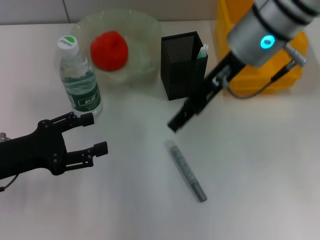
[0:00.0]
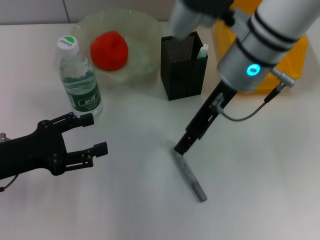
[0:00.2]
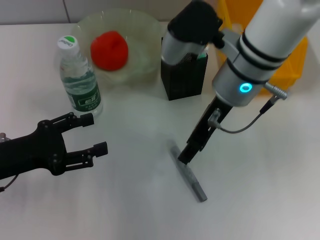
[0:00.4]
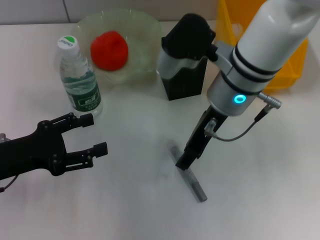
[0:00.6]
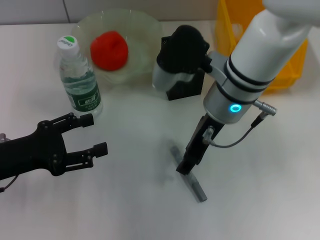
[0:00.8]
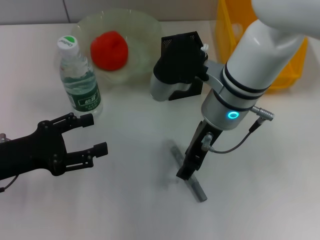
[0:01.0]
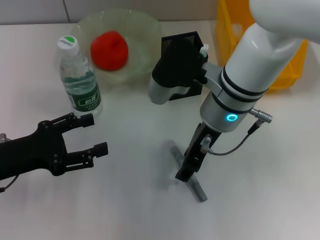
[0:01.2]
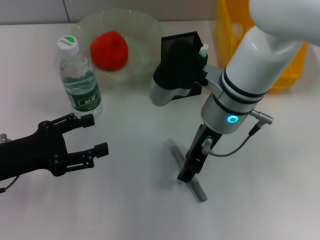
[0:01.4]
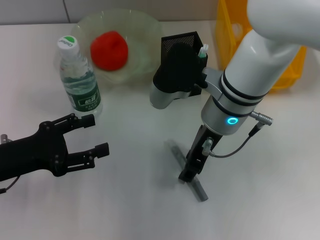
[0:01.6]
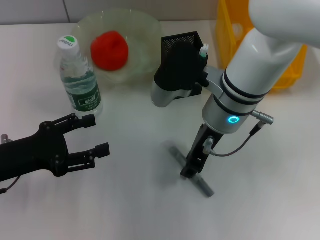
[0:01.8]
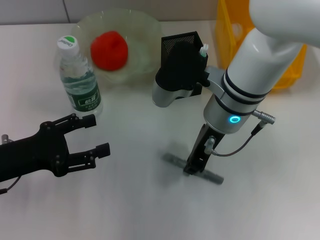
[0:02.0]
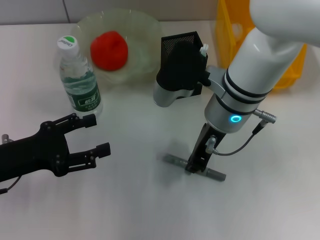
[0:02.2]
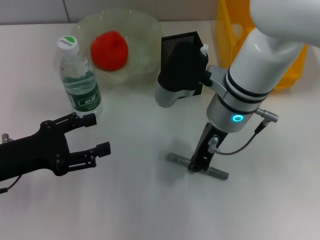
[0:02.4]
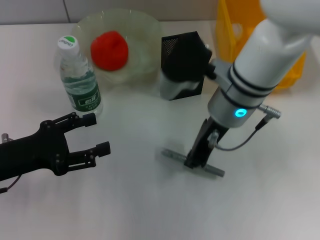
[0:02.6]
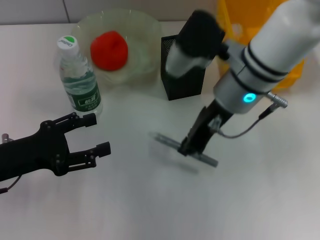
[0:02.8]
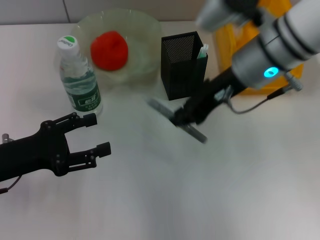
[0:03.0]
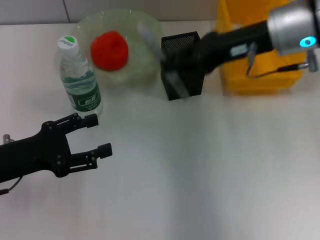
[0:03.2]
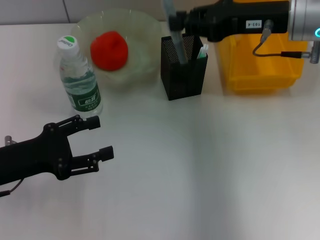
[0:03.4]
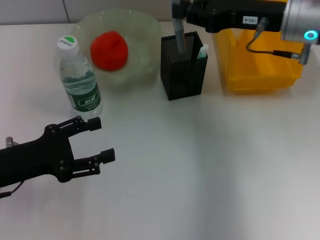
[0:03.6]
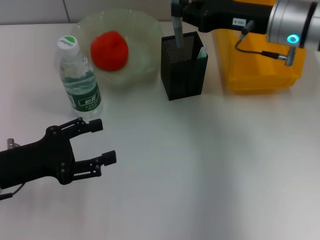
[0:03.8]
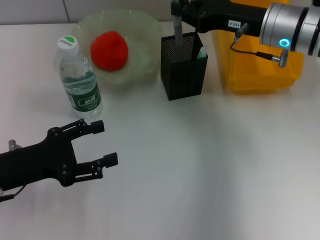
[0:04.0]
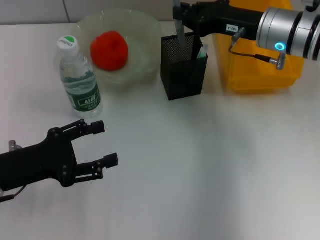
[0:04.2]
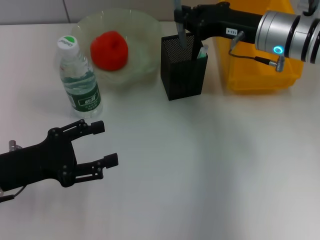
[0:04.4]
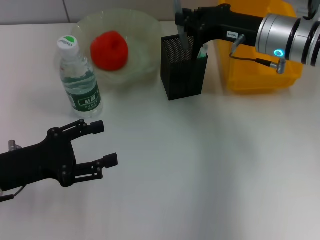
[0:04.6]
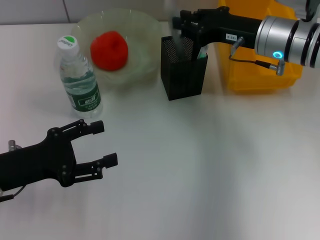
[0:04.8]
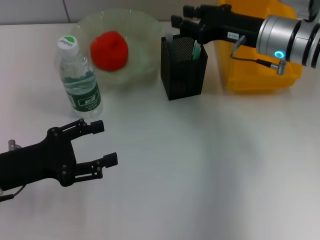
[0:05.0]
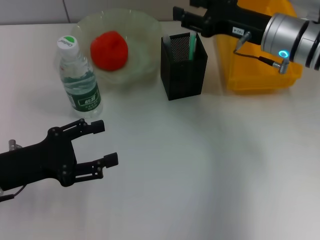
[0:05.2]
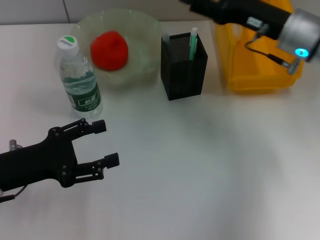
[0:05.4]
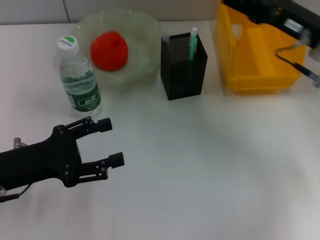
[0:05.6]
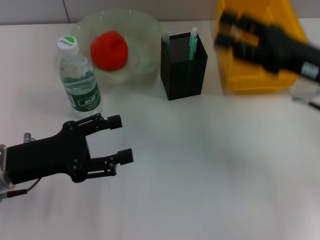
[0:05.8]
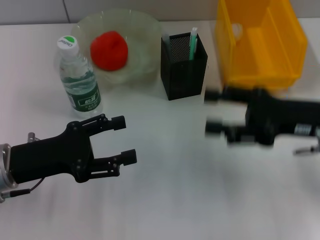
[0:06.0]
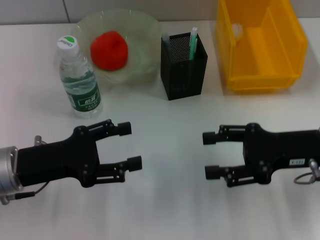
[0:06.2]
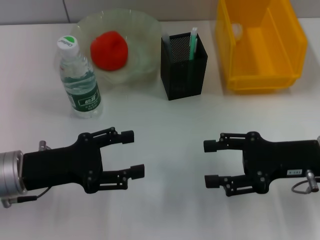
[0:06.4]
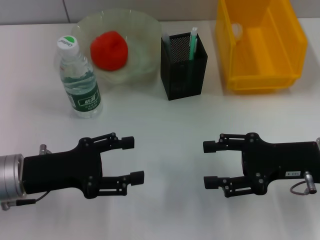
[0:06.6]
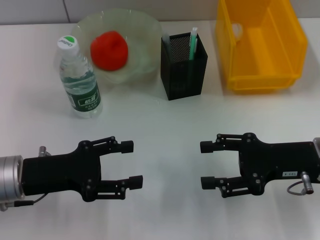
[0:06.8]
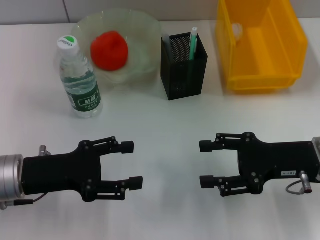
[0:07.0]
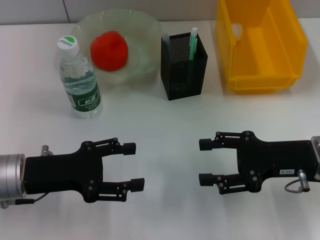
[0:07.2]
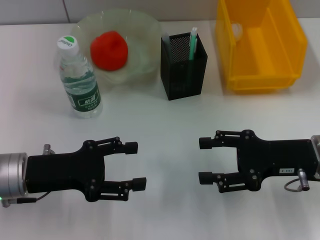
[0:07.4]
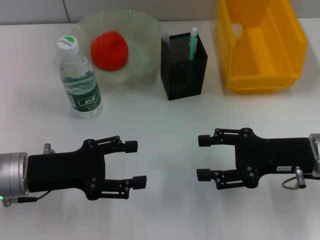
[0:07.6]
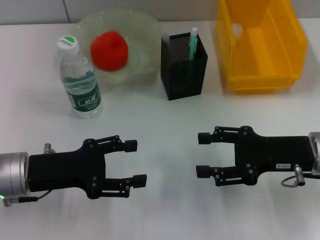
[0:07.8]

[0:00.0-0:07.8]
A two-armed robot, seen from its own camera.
Step, 0:00.0 to 0:02.0: Grab the gray glue with the right hand.
Step, 0:02.4 to 0:05.0: Place the gray glue into the pen holder with the right hand.
0:00.0 to 0:01.6: The right gripper is displaced downward by approximately 10 cm.
0:01.6 to 0:03.2: The right gripper goes roughly 15 cm to the right and upward, and closes up.
0:03.2 to 0:04.6: The right gripper shifts some 10 cm downward.
0:04.6 to 0:06.2: The right gripper is displaced backward and to the right by some 15 cm, and opens up.
0:06.2 to 0:07.8: The grippers stay close to where they were, moving slightly.

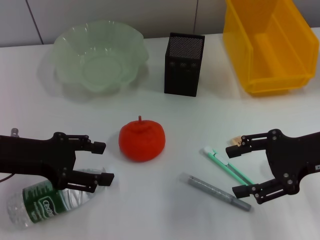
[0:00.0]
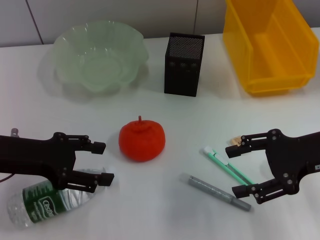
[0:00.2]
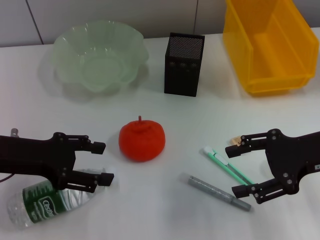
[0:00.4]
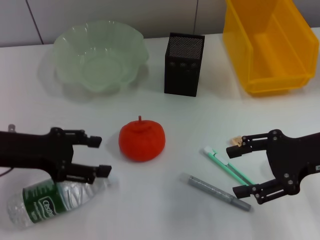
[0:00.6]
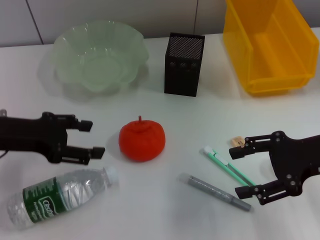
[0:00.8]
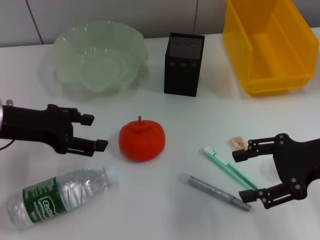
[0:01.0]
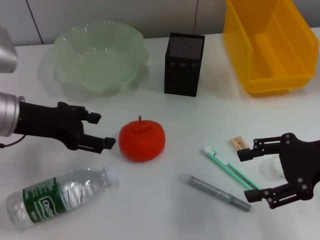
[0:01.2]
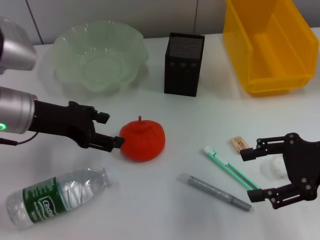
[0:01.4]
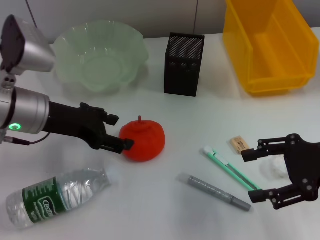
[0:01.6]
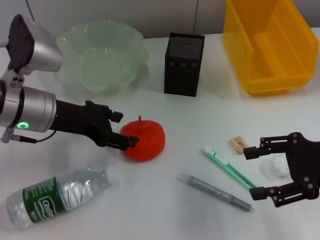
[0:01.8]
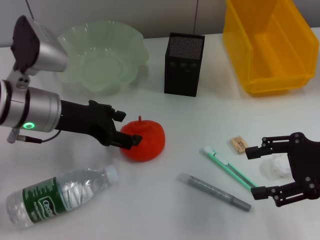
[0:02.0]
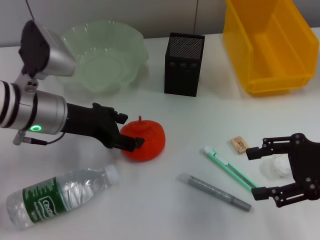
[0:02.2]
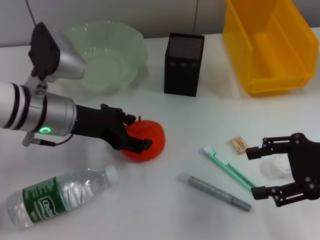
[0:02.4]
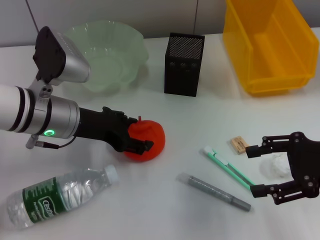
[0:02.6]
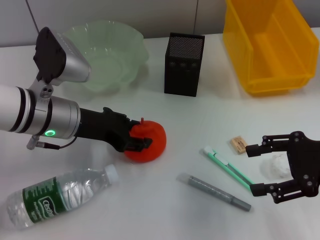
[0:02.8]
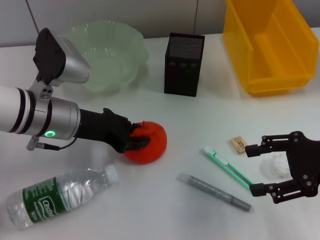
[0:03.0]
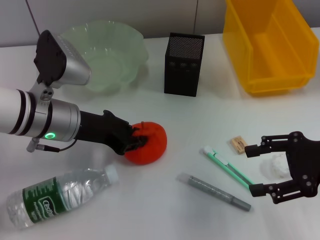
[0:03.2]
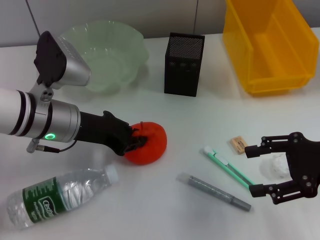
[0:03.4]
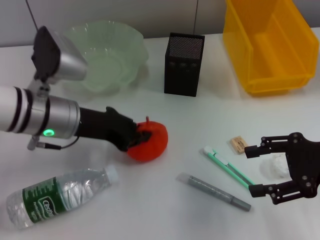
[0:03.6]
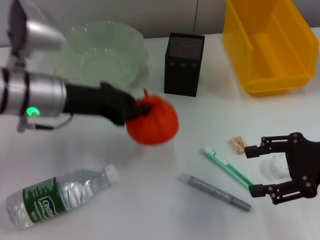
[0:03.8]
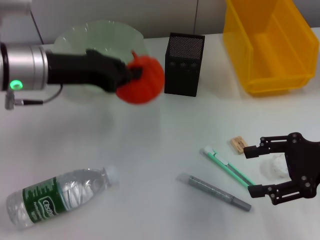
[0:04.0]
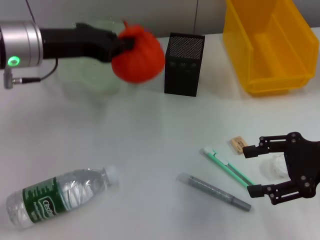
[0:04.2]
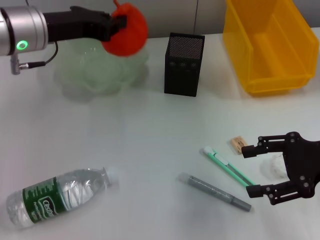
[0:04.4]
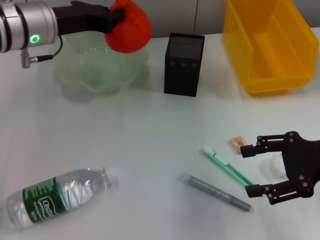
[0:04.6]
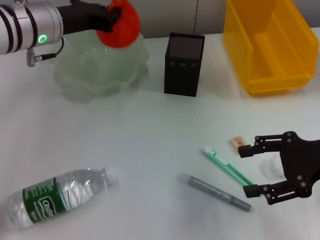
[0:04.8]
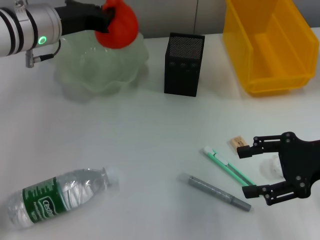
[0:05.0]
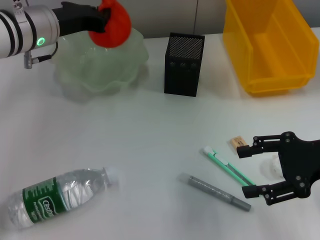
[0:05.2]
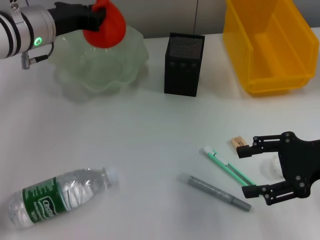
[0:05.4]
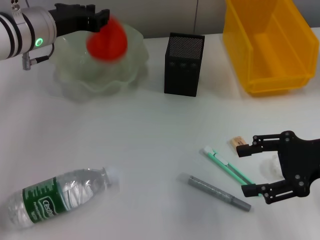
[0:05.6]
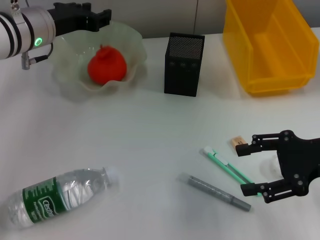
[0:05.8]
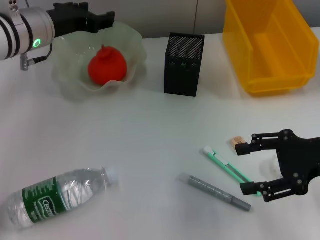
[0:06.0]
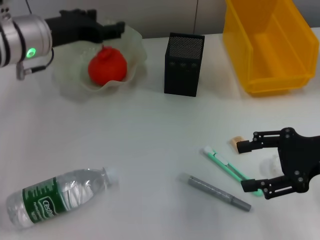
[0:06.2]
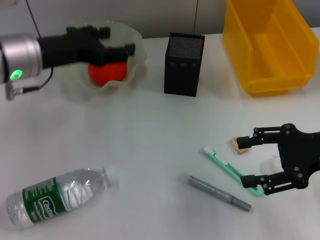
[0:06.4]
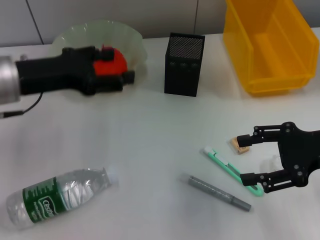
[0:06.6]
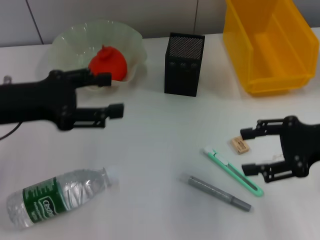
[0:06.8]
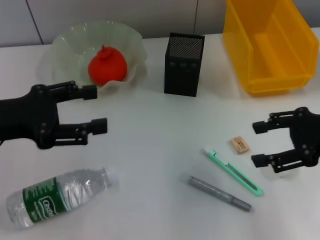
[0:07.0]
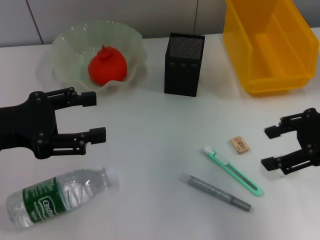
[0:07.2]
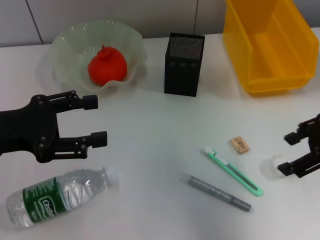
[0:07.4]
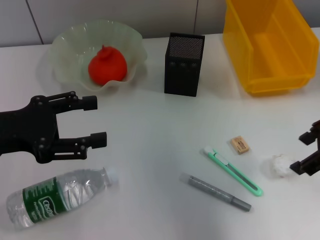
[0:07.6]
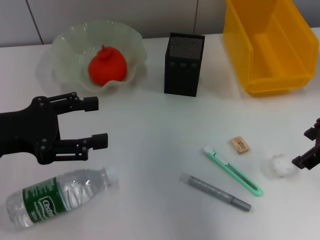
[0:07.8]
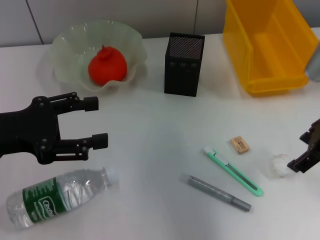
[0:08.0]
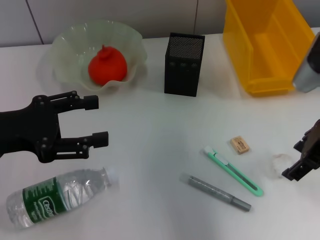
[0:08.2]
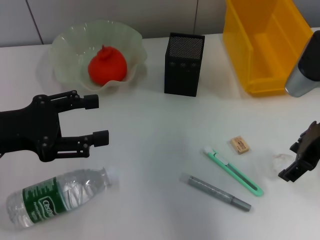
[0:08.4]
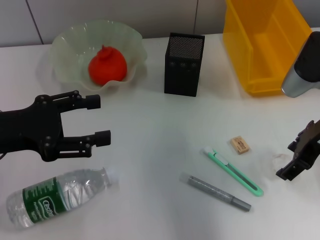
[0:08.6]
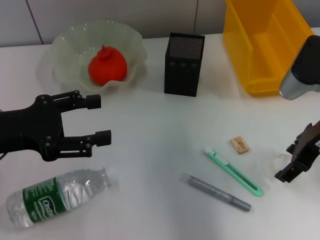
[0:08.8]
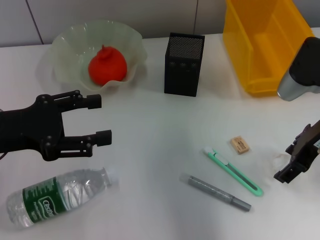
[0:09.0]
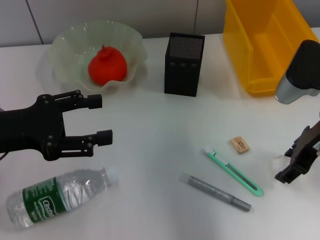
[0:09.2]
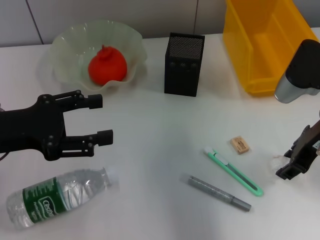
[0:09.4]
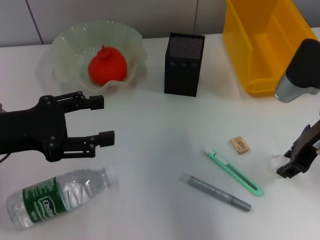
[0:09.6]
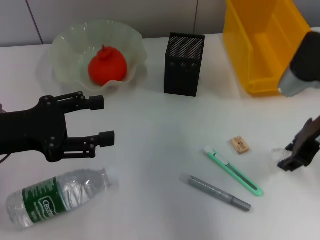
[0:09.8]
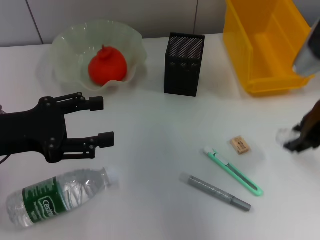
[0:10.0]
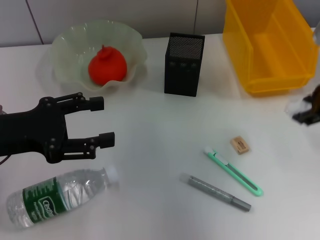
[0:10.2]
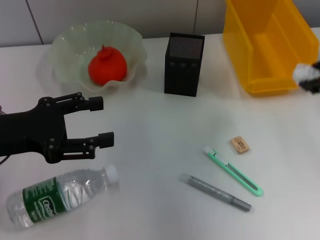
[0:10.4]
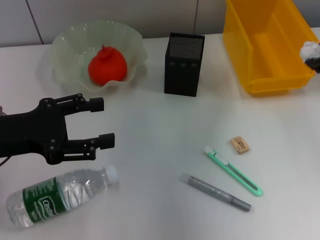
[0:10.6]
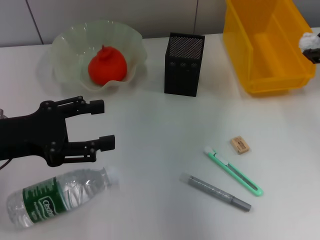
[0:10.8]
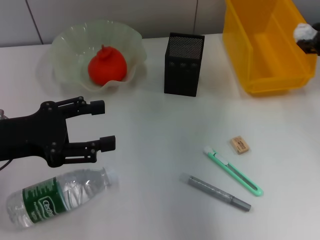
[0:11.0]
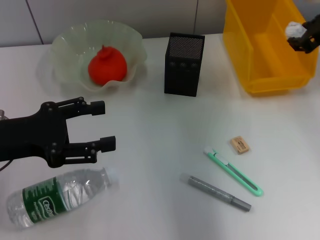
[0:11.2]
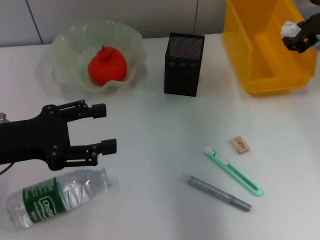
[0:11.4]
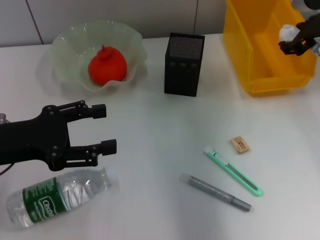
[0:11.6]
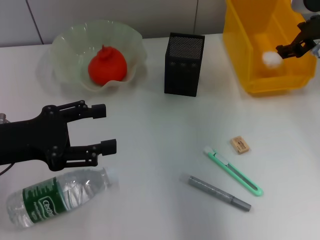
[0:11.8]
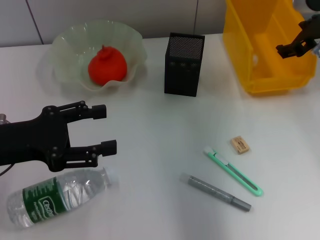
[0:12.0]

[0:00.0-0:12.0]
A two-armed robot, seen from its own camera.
Step, 0:00.0 to 0:03.2: Grab the orange with the left hand.
Step, 0:03.4 to 0:05.8: Place the orange into the fruit bowl with the left hand.
Step, 0:06.0 to 0:09.4: Grab the paper ball with the right hand.
Step, 0:09.6 to 0:12.0: Place the paper ball into the trash can with the right hand.
0:00.0 to 0:01.6: The left gripper heads to the right and forward, covering some 10 cm.
0:01.6 to 0:03.0: The grippers move only a little.
0:03.0 to 0:04.4: The left gripper is displaced upward and forward by some 10 cm, and closes.
0:04.4 to 0:06.0: The left gripper opens up.
0:06.0 to 0:07.6: The right gripper moves upward, approximately 10 cm. The left gripper travels backward and to the left by approximately 20 cm, and opens up.
0:07.6 to 0:09.0: The right gripper goes some 5 cm downward.
0:09.0 to 0:10.4: The right gripper heads upward, covering about 10 cm, and closes.
0:10.4 to 0:12.0: The right gripper goes approximately 10 cm forward and downward, and opens.

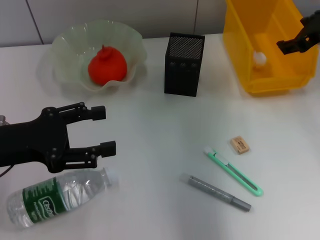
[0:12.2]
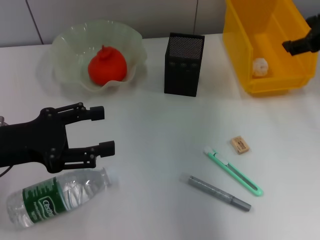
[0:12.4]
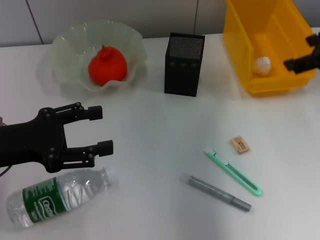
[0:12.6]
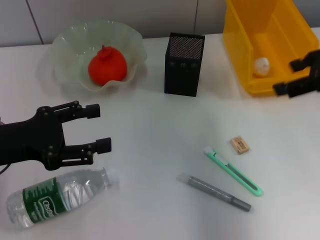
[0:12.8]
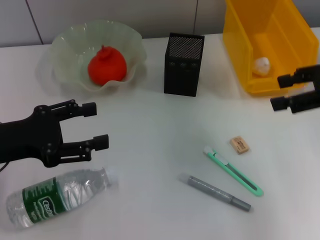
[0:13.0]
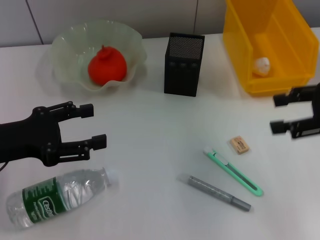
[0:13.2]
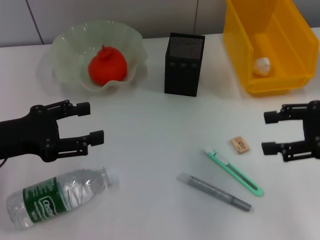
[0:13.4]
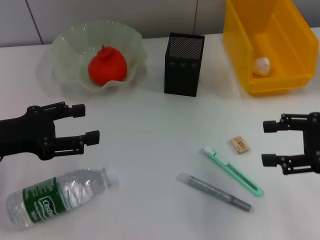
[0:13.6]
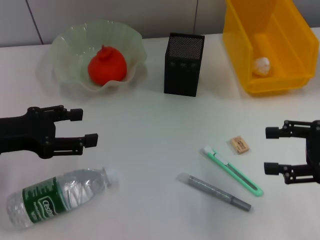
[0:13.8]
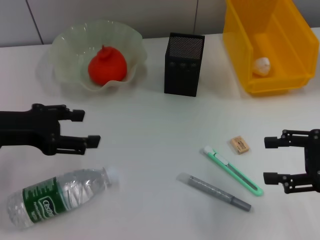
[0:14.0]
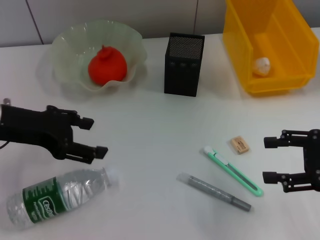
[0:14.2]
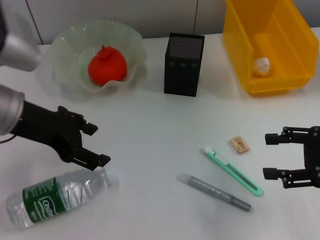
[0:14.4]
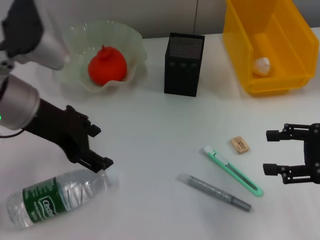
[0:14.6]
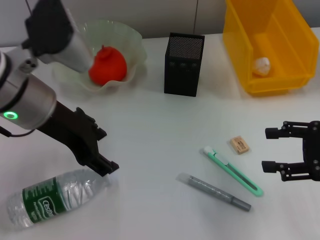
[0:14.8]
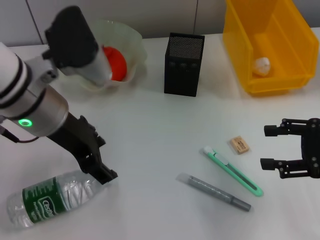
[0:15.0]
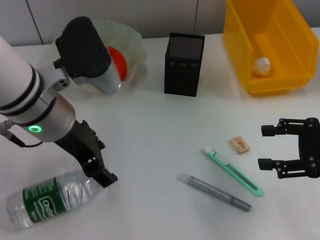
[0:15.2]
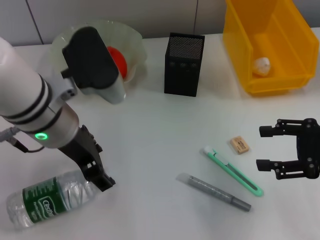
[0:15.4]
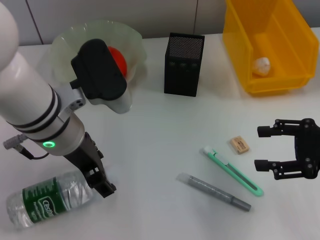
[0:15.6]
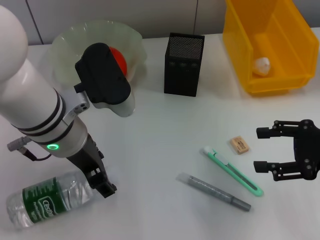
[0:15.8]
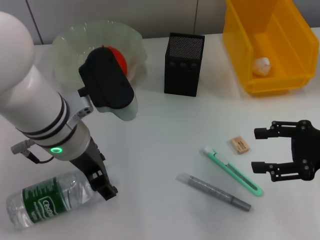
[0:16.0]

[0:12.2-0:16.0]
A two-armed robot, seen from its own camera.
0:12.2 to 0:13.4: The right gripper goes about 15 cm backward and downward.
0:13.4 to 0:14.8: The left gripper travels to the right and upward by roughly 15 cm.
0:14.8 to 0:16.0: The left gripper is displaced downward by approximately 5 cm.
